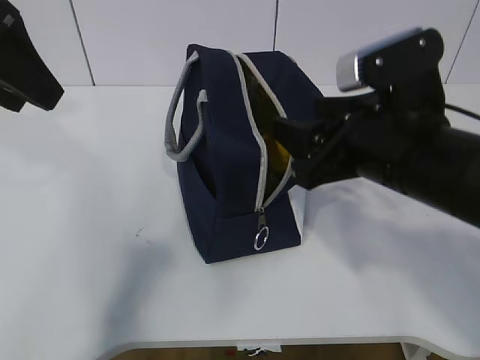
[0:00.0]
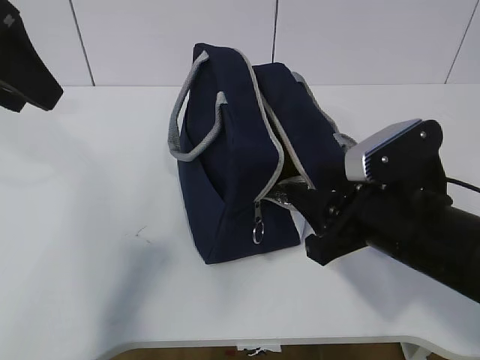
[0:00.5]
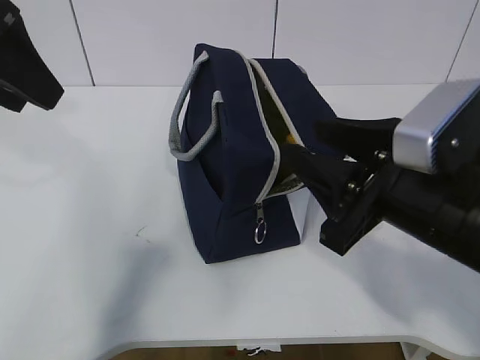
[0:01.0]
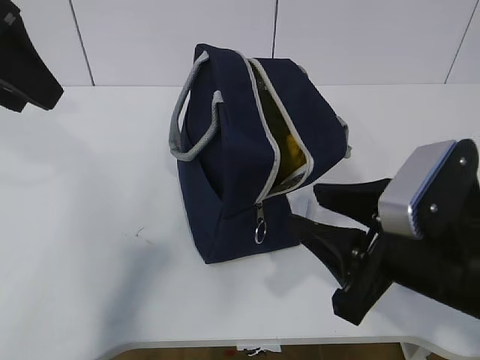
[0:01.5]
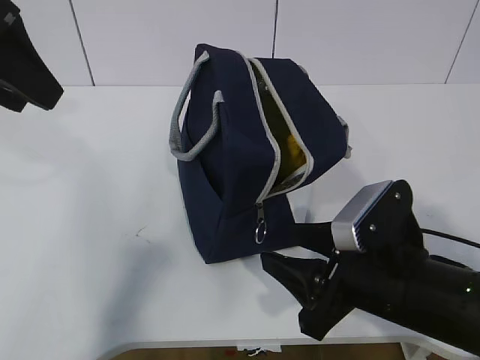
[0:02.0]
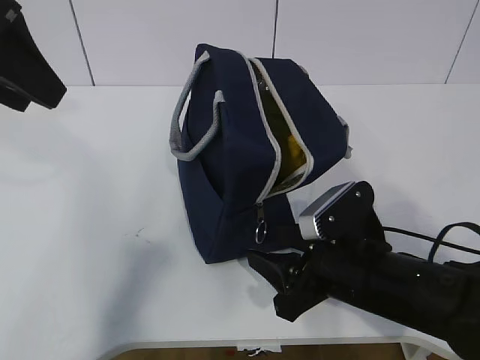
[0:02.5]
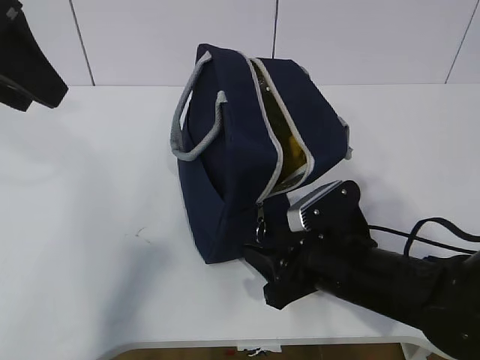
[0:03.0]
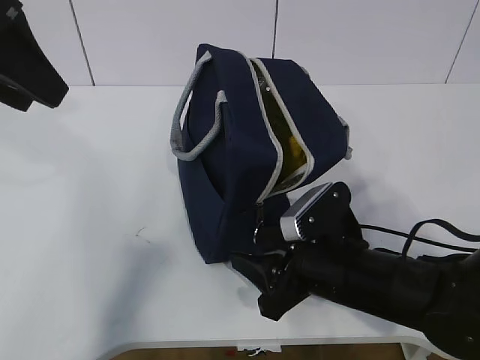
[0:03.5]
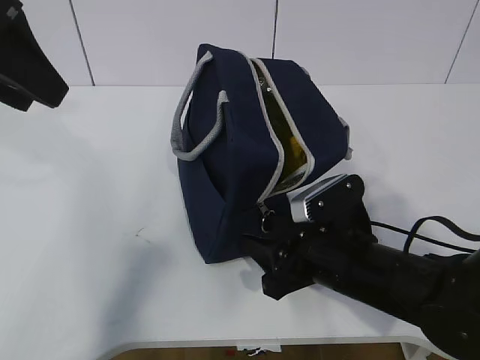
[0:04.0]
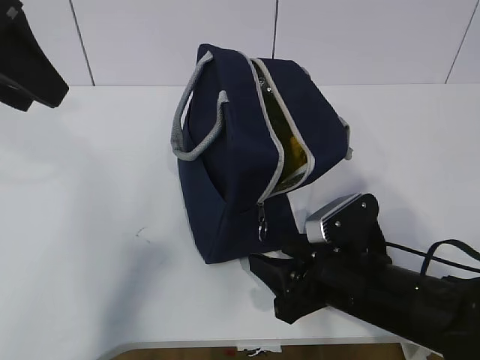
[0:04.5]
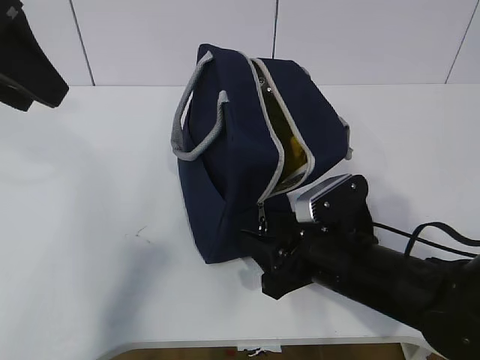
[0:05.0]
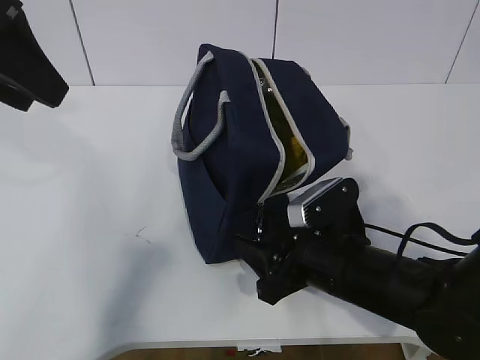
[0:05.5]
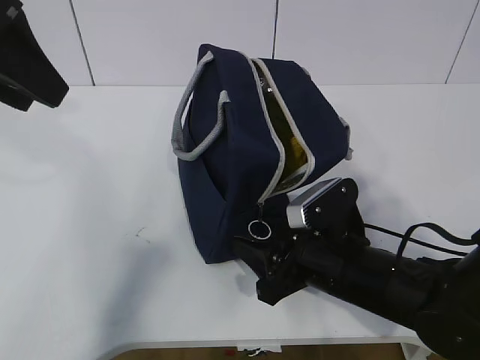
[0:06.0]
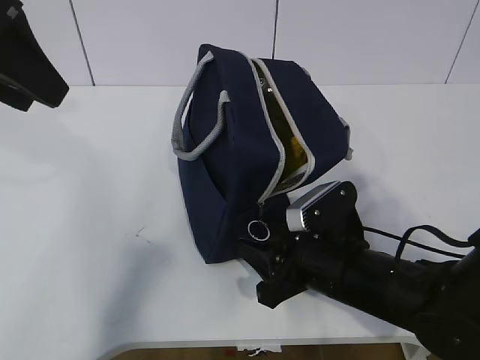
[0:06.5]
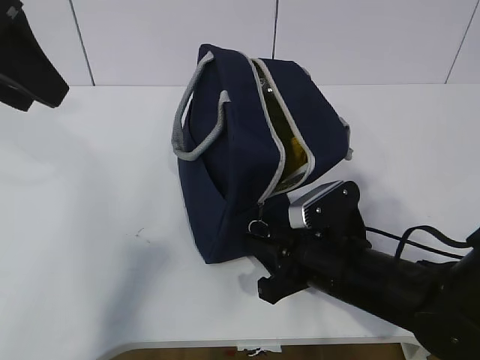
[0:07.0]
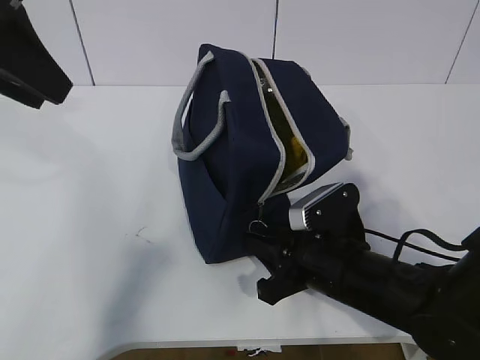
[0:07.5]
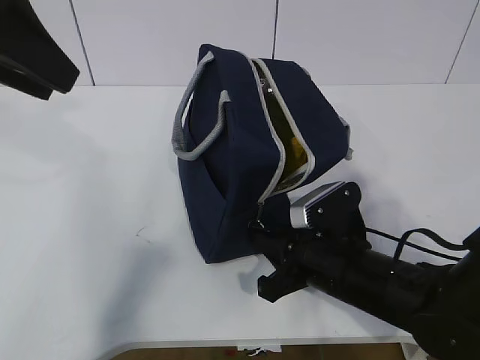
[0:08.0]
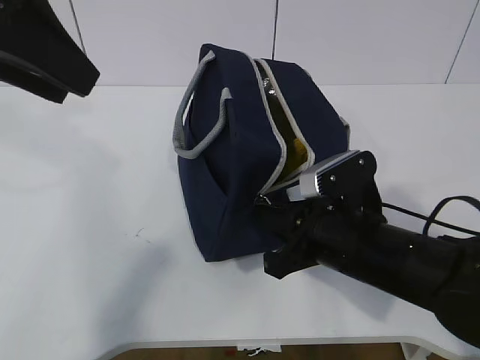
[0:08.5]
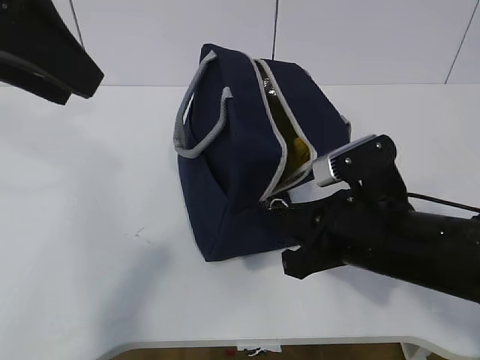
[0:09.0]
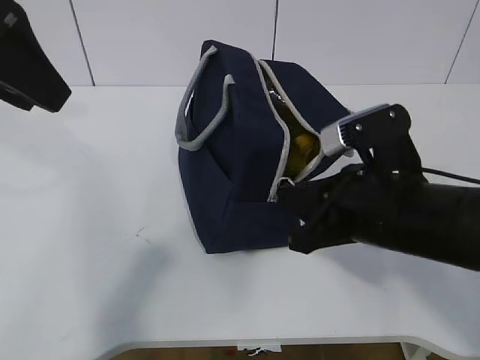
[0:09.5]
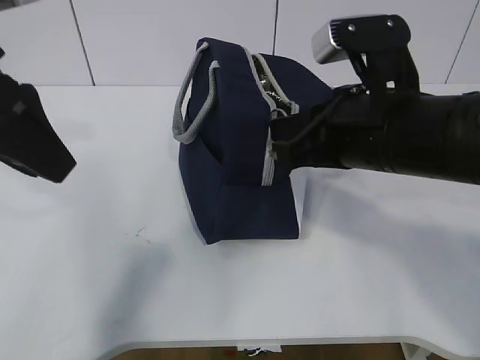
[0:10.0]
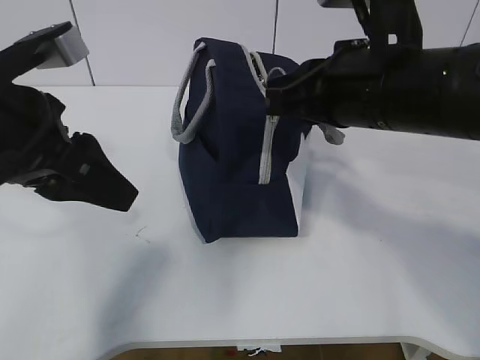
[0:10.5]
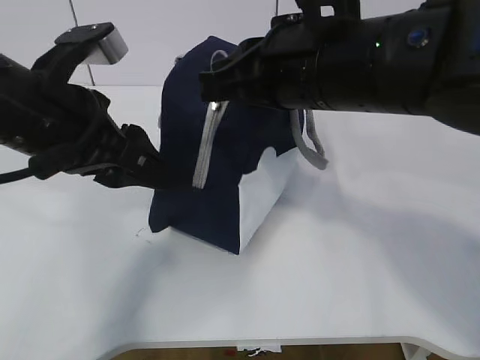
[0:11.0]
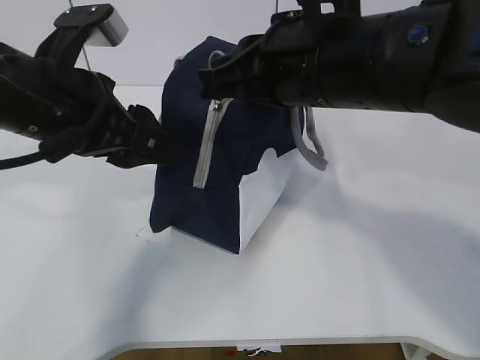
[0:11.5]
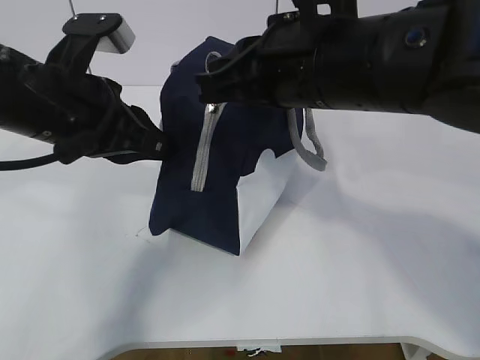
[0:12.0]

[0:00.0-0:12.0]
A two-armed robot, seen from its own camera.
Step, 0:07.5 to 0:11.0: Pull the zipper with your right hand.
0:00.0 to 0:02.0: The right gripper goes up and down, some 10 cm each way, reversing 2 times.
0:02.0 to 0:04.0: The right gripper ends up some 5 cm from where it was.
0:04.0 to 0:06.0: The grippers move only a little.
0:06.0 to 0:08.0: The right gripper closes.
0:08.0 to 0:10.0: The right gripper is displaced upward by approximately 15 cm.
0:10.0 to 0:12.0: The right gripper moves upward and to the left, approximately 10 cm. Meanwhile the left gripper goes about 10 cm downward and to the right, and closes its fingers.

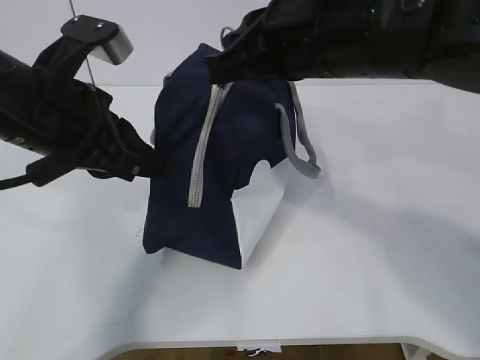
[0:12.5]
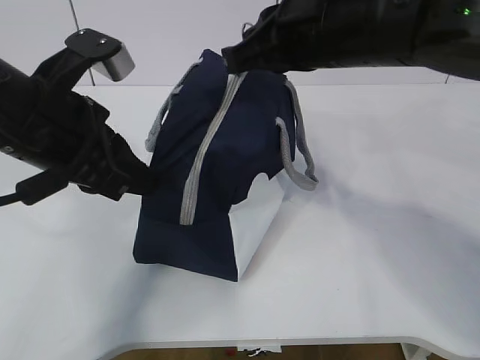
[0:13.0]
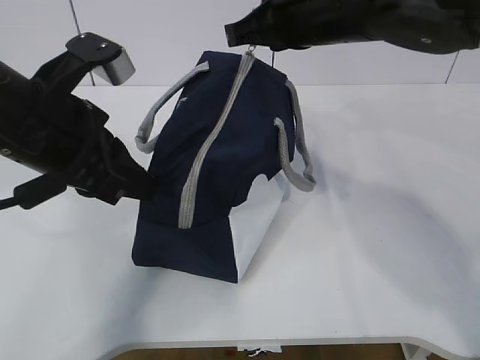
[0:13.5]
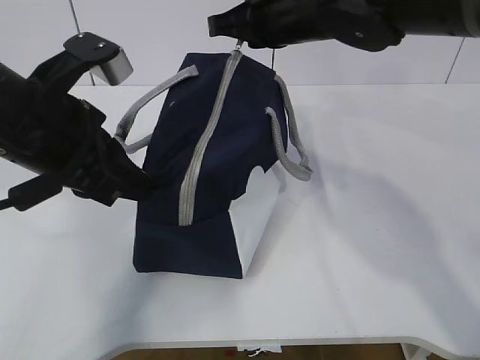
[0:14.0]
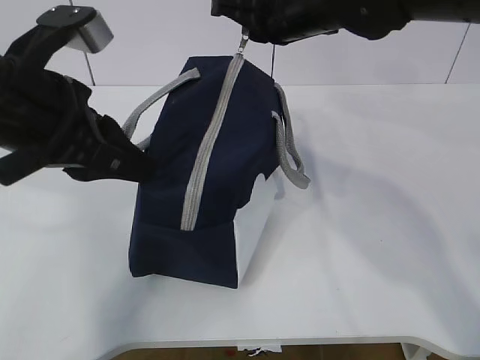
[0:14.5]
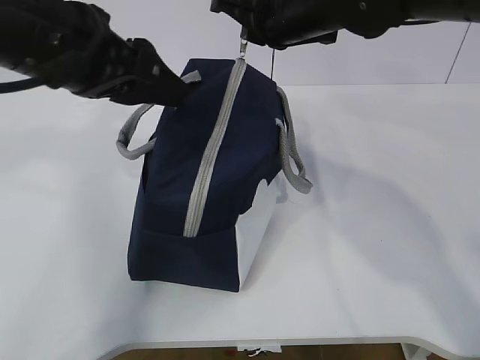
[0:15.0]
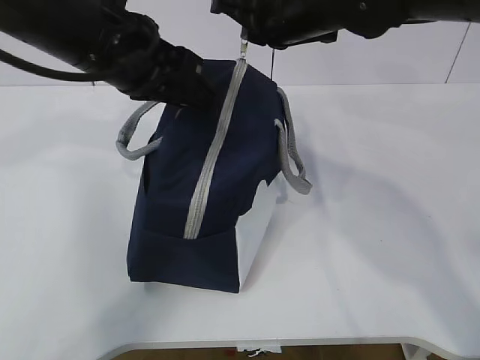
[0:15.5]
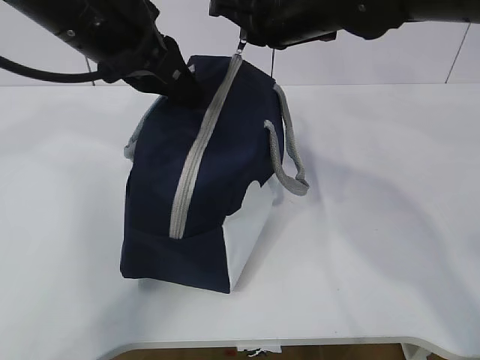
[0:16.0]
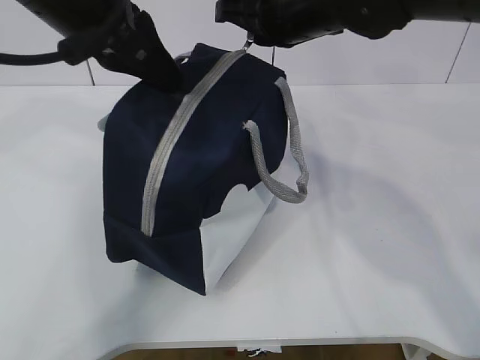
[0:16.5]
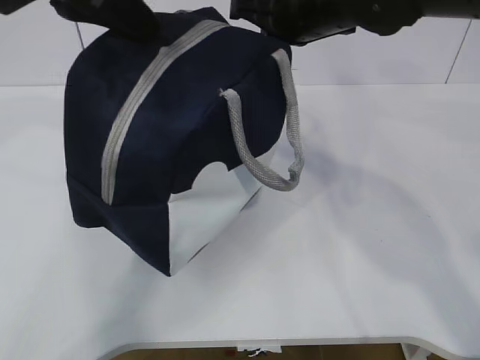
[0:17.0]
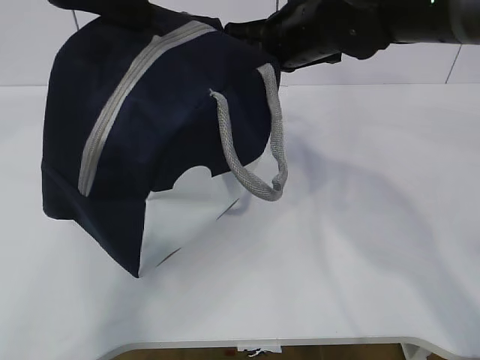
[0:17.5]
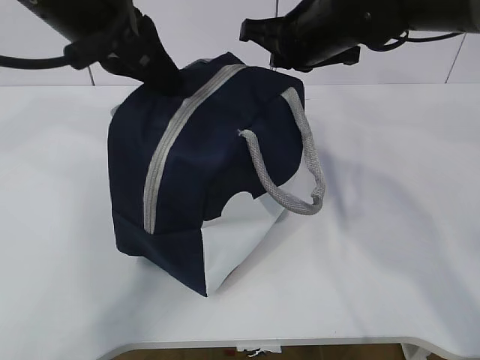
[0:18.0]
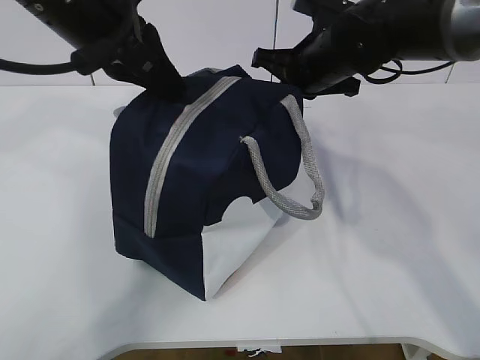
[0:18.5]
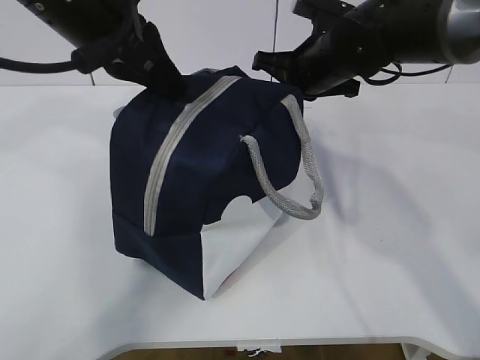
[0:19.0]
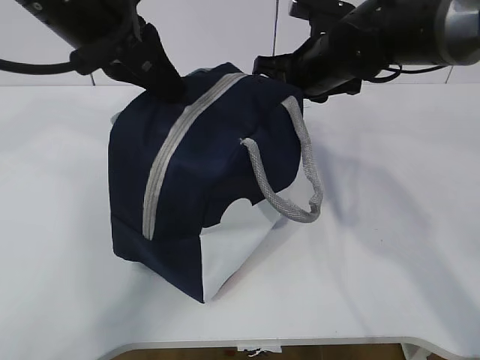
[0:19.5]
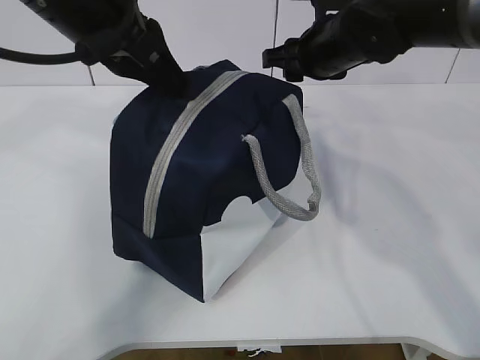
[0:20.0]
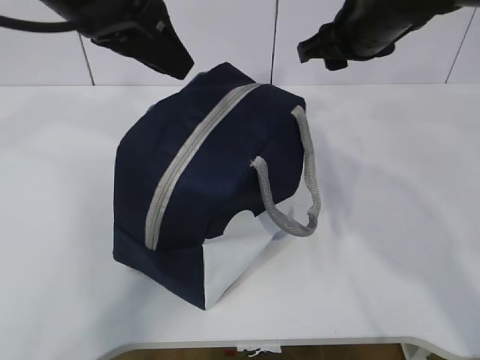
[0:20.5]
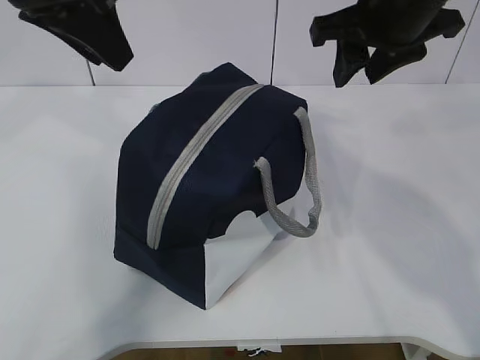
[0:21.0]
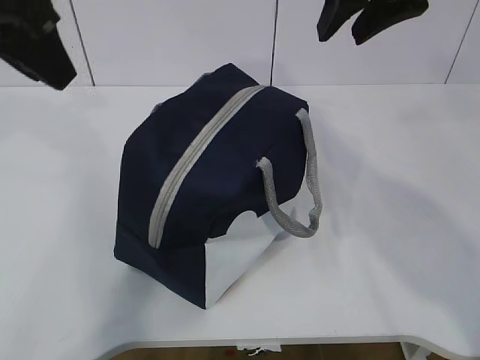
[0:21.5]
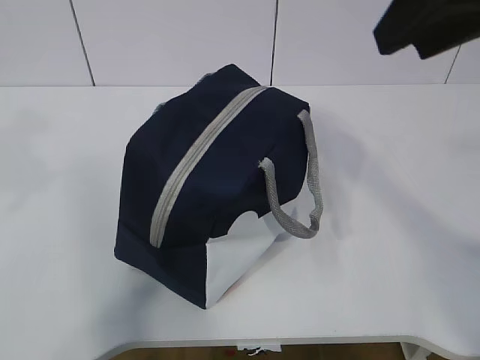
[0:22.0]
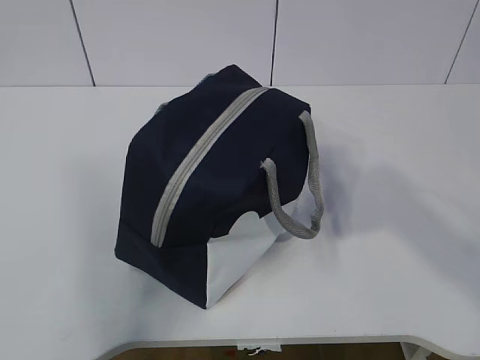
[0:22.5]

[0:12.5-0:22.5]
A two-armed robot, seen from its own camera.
0:12.5 to 0:14.5: The right gripper moves forward, approximately 10 cm.
0:14.5 to 0:16.5: The left gripper travels upward and forward by approximately 10 cm, and opens, then closes again.
0:16.5 to 0:18.5: The right gripper is displaced downward by roughly 5 cm.
0:18.5 to 0:20.5: The right gripper travels upward by about 5 cm, and opens its fingers, while the left gripper opens up.
0:20.5 to 0:22.5: The left gripper moves backward and to the left, approximately 25 cm. The right gripper is displaced backward by about 30 cm.

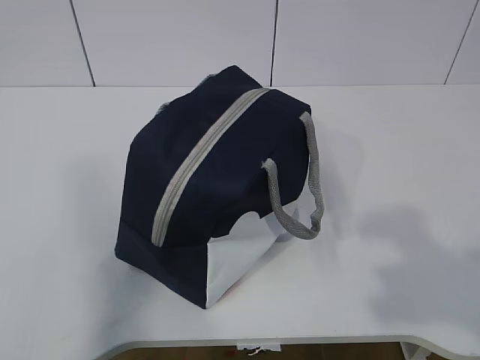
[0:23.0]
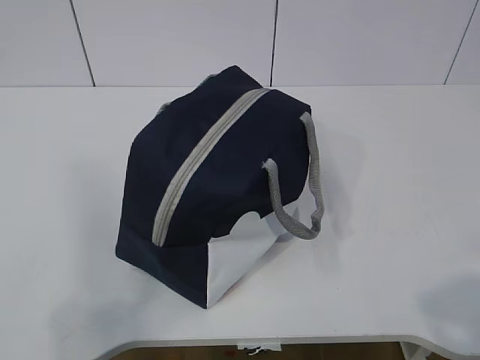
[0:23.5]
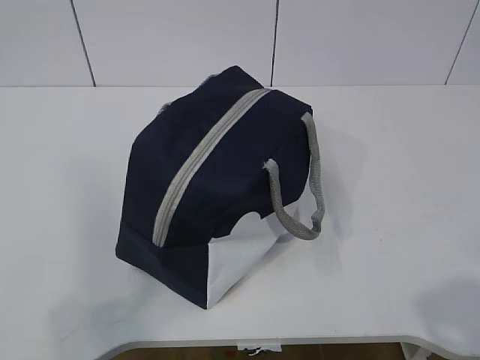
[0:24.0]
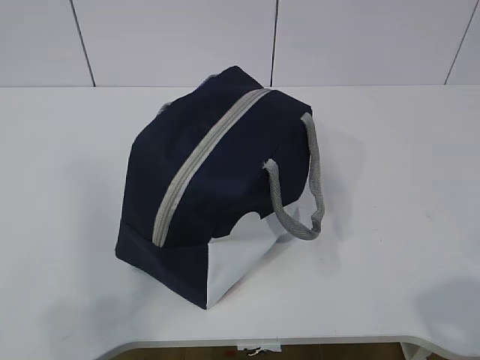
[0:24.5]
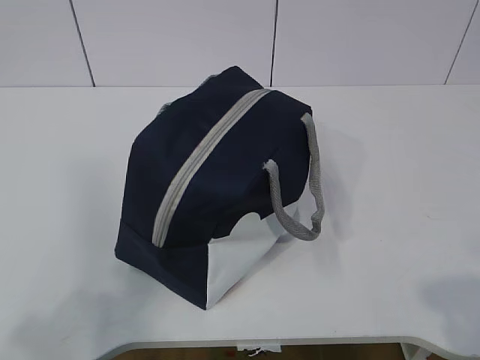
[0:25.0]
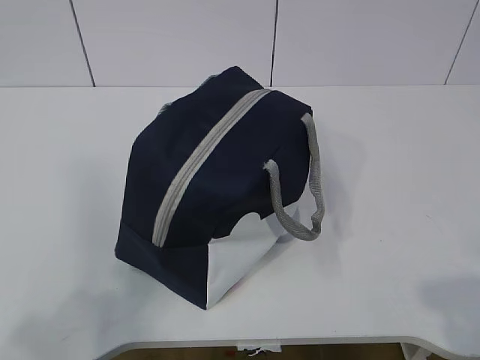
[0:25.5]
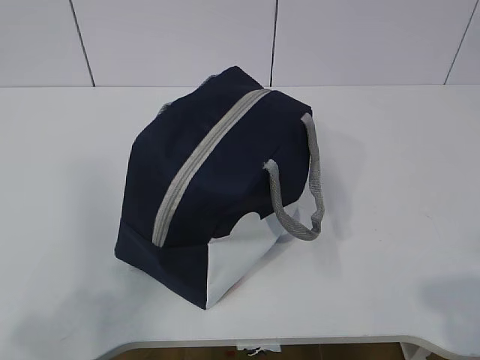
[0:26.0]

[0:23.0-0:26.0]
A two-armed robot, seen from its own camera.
0:23.0 to 0:24.5: The right gripper heads downward, covering some 10 cm. Meanwhile the left gripper is displaced downward by roughly 5 cm.
